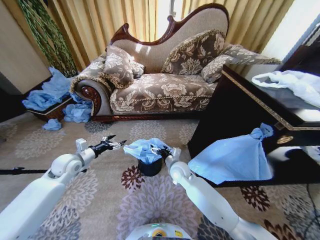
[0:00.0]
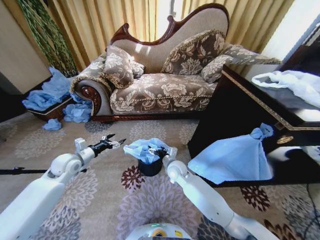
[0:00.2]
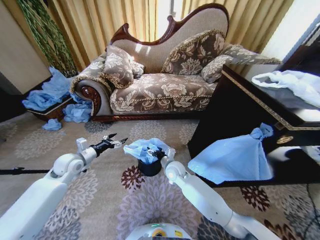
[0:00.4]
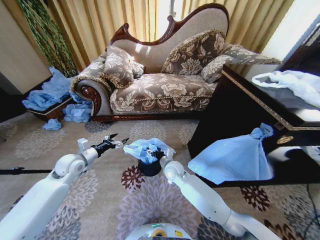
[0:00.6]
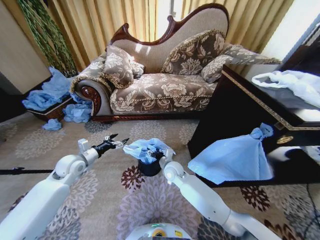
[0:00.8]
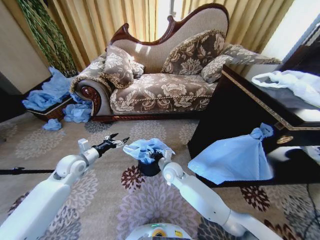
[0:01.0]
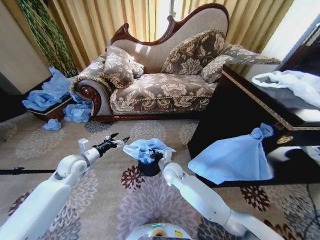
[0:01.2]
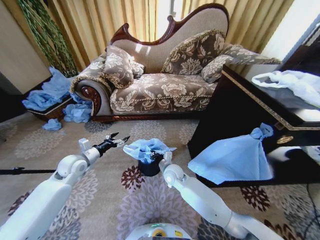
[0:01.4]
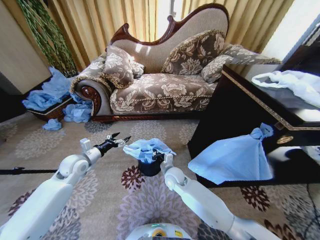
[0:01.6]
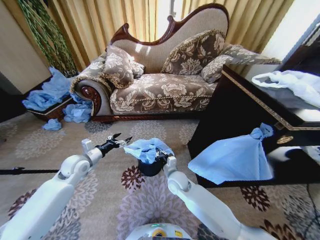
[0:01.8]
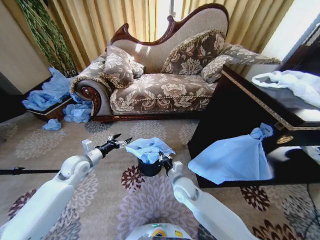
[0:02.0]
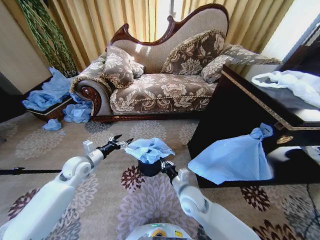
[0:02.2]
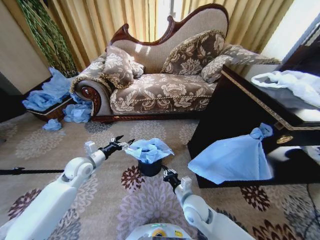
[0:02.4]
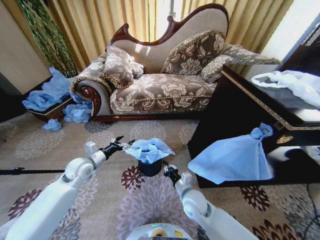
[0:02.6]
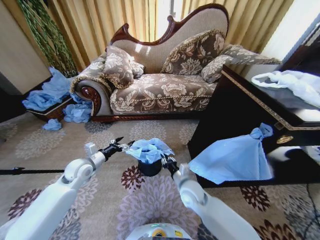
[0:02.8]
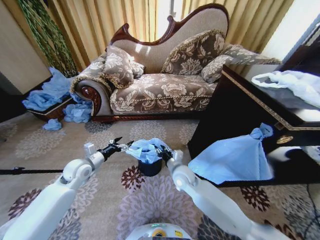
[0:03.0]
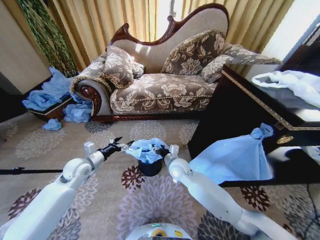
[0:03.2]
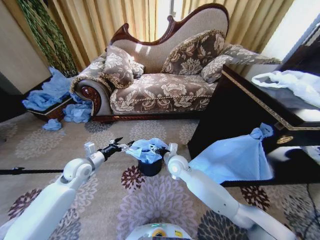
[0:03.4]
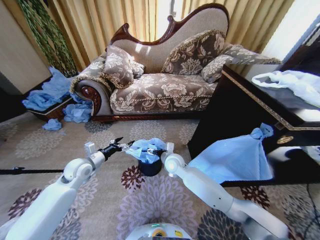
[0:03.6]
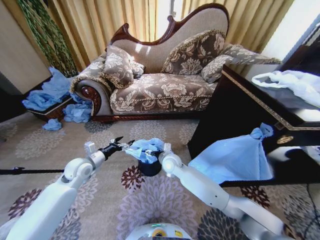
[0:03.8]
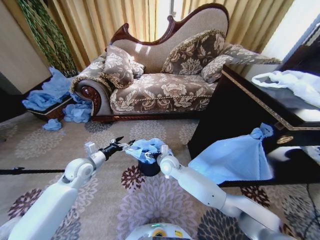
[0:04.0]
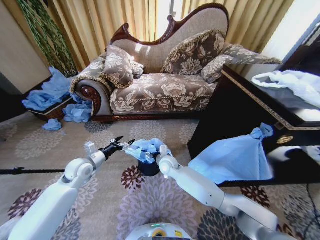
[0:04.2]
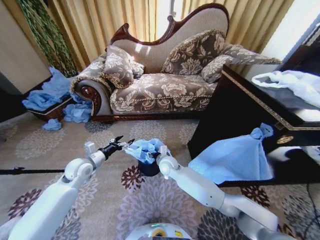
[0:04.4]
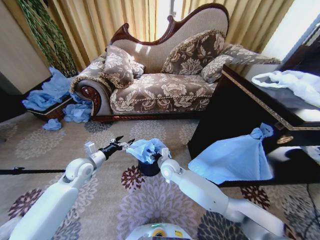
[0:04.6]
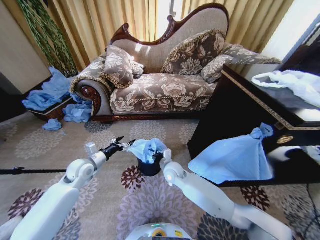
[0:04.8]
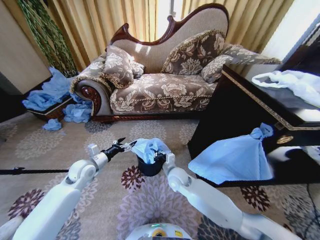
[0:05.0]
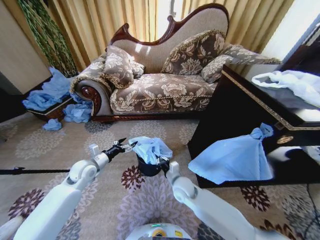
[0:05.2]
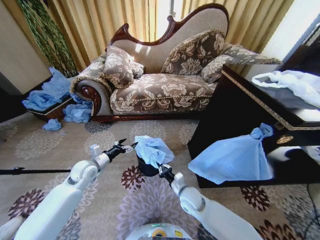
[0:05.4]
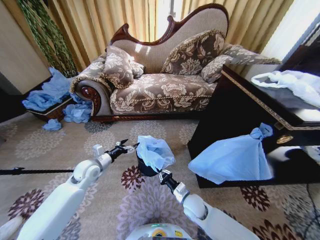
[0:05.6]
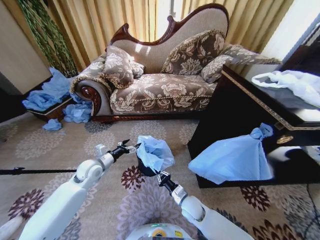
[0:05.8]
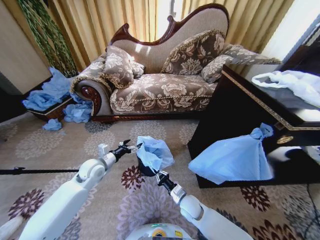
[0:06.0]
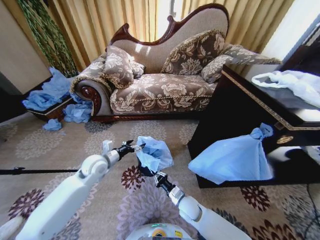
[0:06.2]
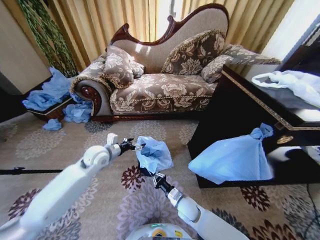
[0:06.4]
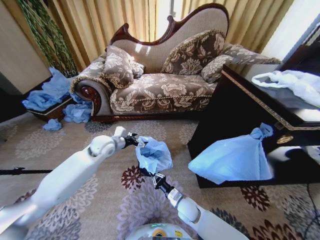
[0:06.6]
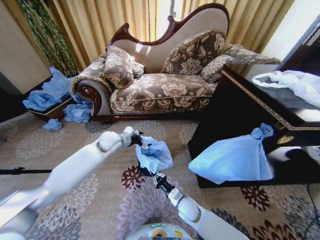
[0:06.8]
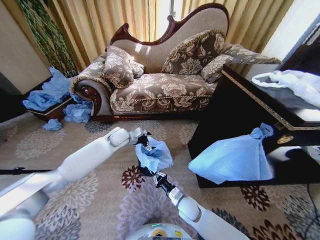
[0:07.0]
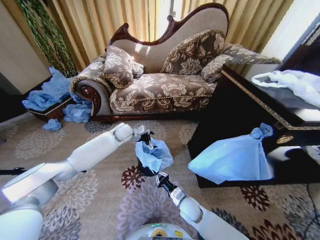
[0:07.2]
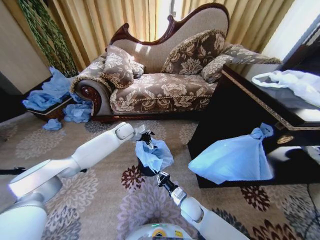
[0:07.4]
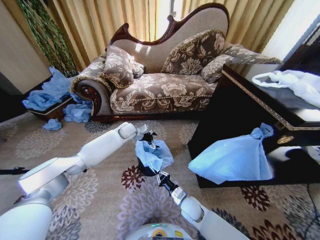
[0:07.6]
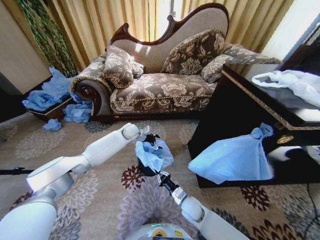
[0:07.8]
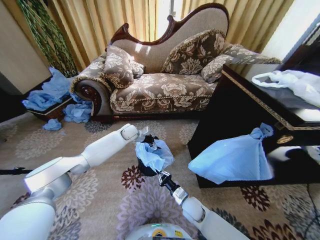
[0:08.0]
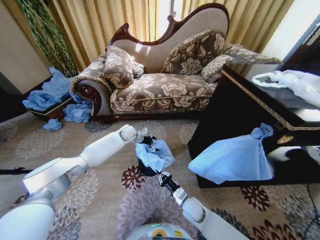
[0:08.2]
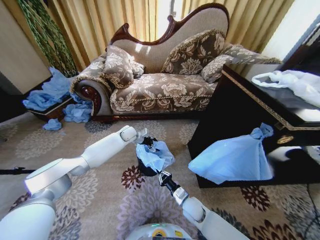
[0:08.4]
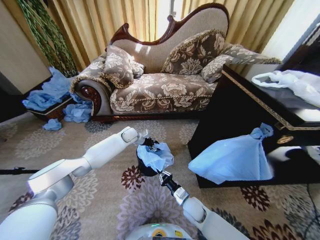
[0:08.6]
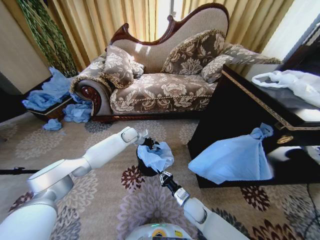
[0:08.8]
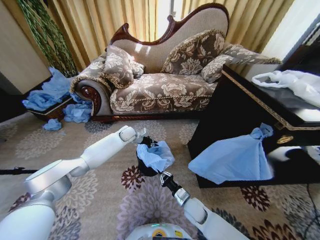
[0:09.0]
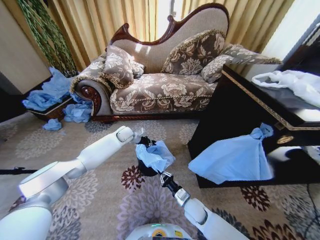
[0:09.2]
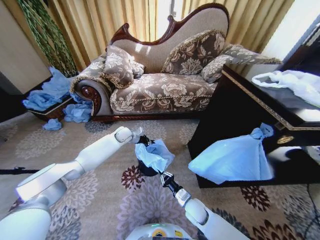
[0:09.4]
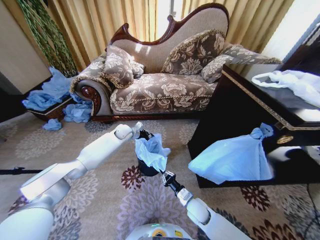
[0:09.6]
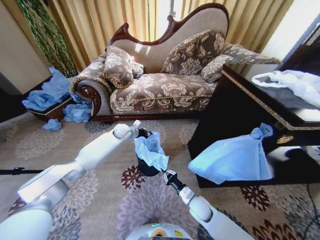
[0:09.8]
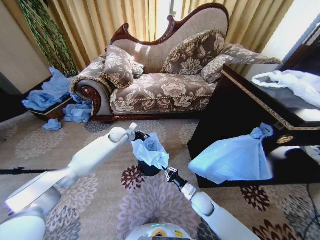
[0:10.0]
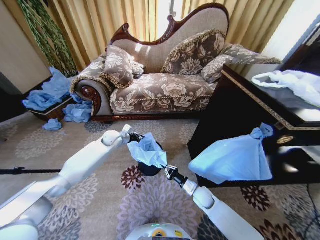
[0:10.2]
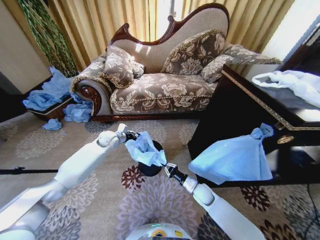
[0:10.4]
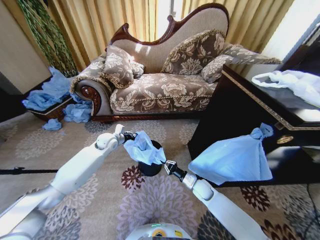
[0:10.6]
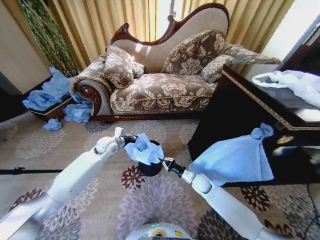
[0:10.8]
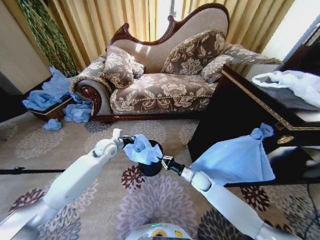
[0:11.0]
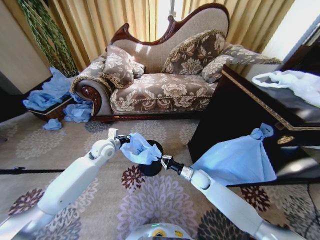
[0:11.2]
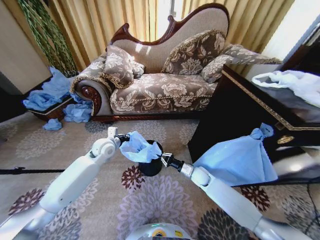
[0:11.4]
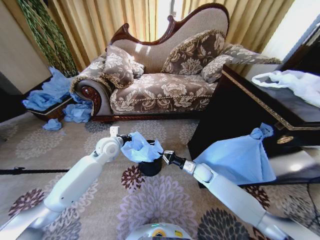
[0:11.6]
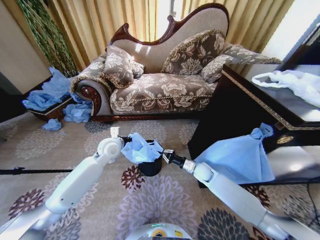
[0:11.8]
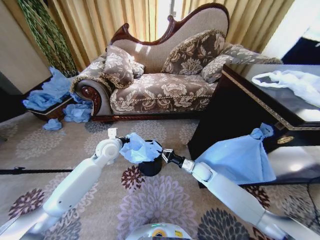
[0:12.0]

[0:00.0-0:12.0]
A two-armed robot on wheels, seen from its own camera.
Task of the whole recording: Place a garbage bag over the trash bin.
0.0 to 1.6 s: The right gripper closes up.
1.6 to 3.0 s: The right gripper is displaced upward by approximately 5 cm, travels backward and back again, roughly 10 cm each way, and opens up.
3.0 to 4.4 s: The right gripper shifts roughly 10 cm forward and to the left, and opens and closes again.
4.4 to 6.0 s: The right gripper moves backward, downward and to the right, about 20 cm, and closes; the left gripper moves about 5 cm.
6.0 to 7.6 s: The left gripper goes roughly 25 cm forward and to the right.
7.6 to 9.0 s: The left gripper closes up.
9.0 to 10.4 s: The left gripper travels to the left and backward by approximately 10 cm; the right gripper heads forward and to the right, covering about 10 cm.
10.4 to 12.0 s: The right gripper moves forward and upward, about 10 cm, while the left gripper moves backward, about 10 cm.

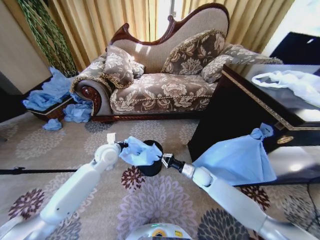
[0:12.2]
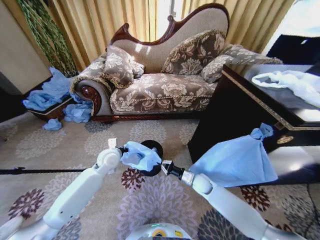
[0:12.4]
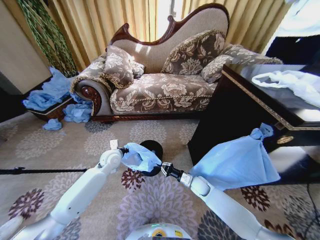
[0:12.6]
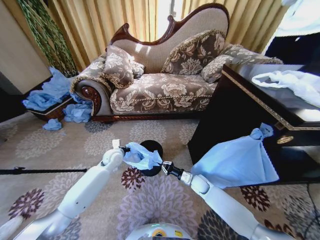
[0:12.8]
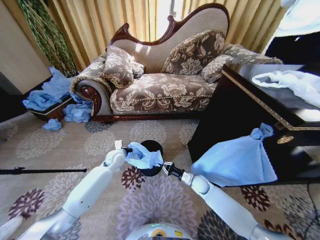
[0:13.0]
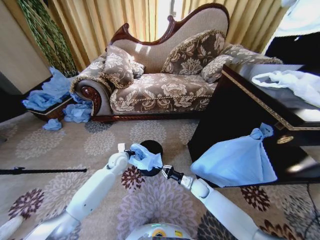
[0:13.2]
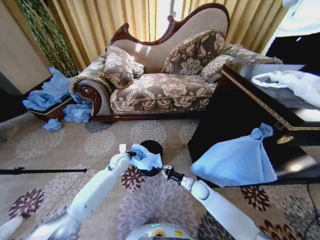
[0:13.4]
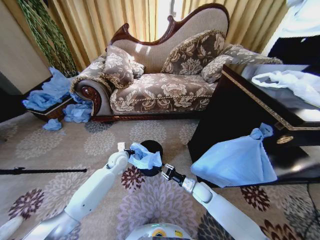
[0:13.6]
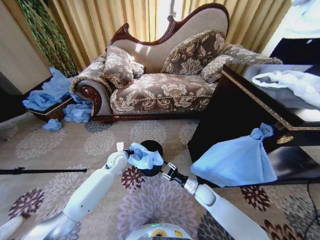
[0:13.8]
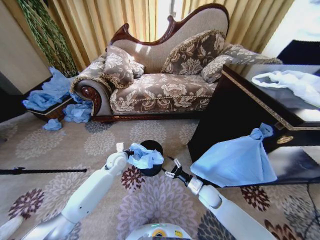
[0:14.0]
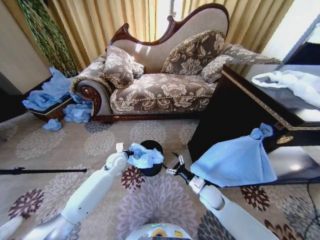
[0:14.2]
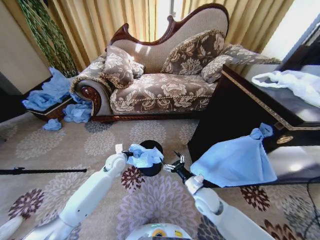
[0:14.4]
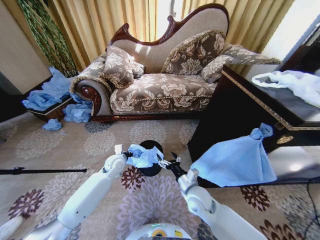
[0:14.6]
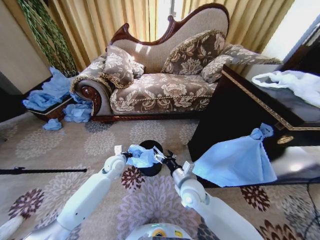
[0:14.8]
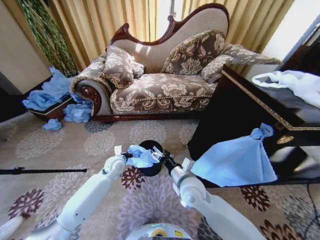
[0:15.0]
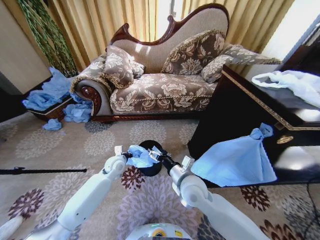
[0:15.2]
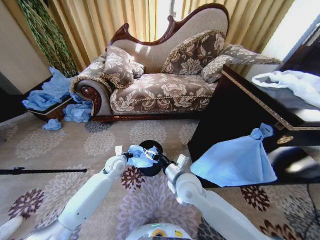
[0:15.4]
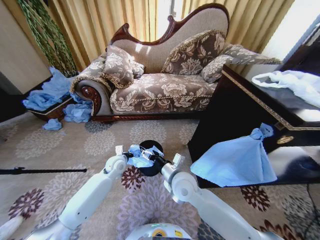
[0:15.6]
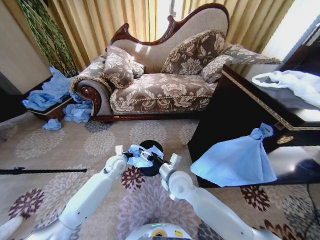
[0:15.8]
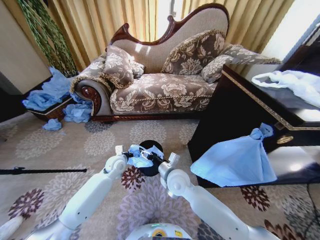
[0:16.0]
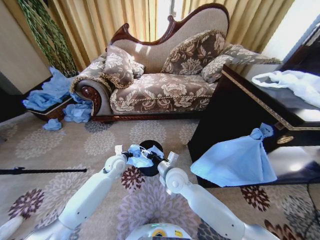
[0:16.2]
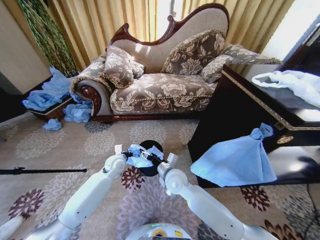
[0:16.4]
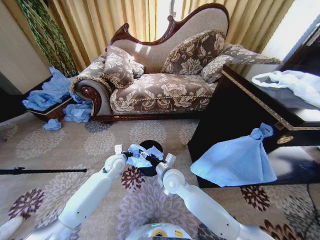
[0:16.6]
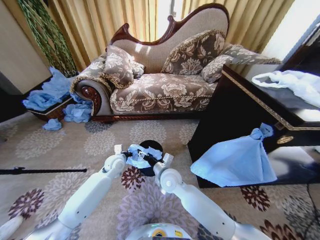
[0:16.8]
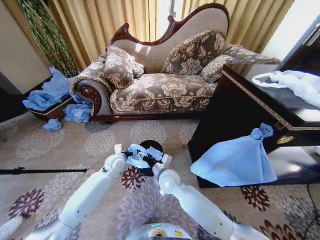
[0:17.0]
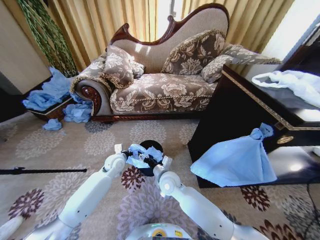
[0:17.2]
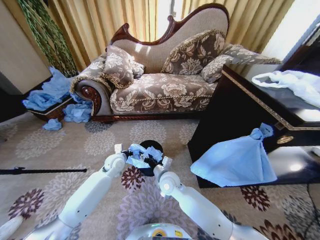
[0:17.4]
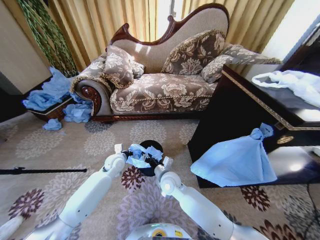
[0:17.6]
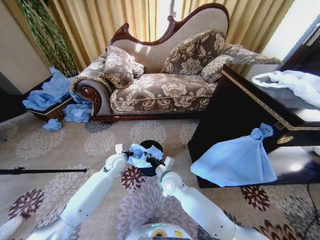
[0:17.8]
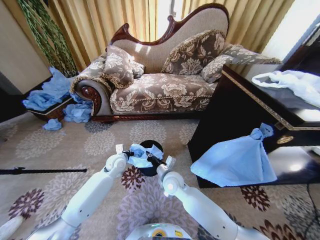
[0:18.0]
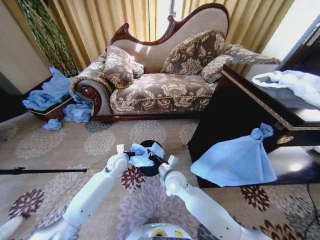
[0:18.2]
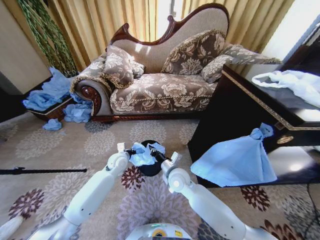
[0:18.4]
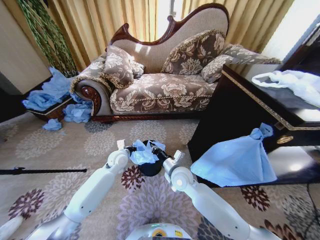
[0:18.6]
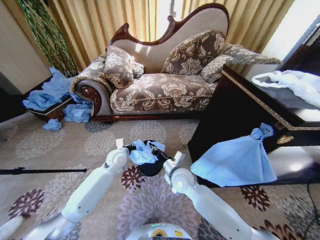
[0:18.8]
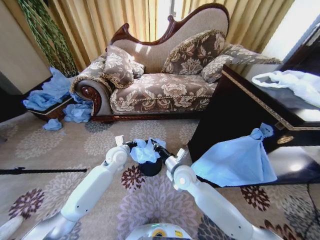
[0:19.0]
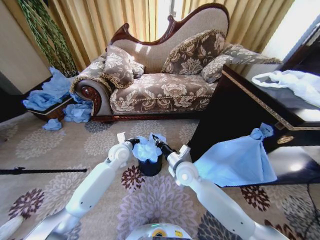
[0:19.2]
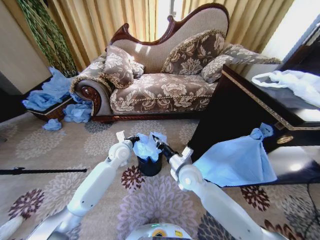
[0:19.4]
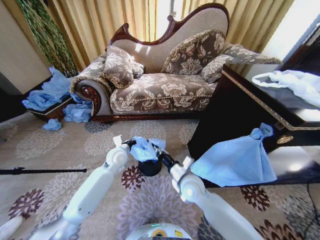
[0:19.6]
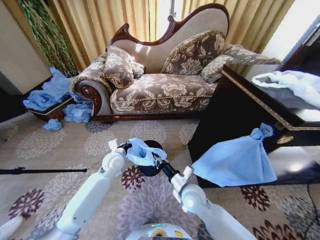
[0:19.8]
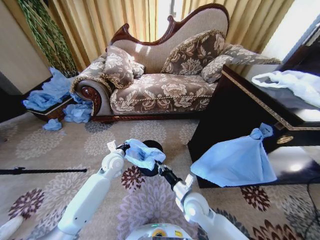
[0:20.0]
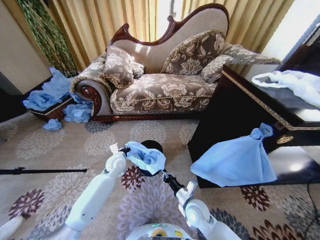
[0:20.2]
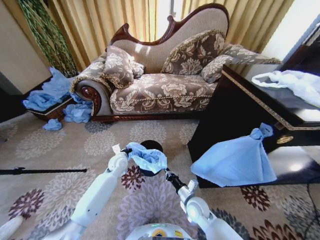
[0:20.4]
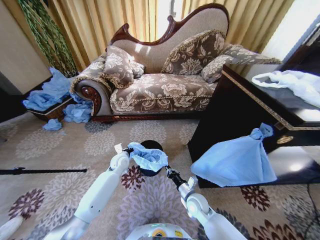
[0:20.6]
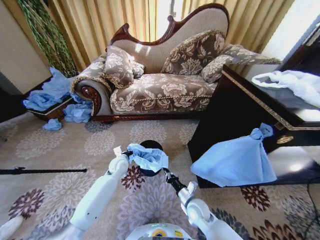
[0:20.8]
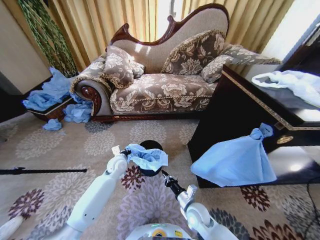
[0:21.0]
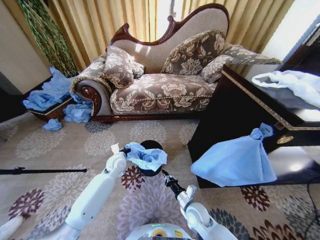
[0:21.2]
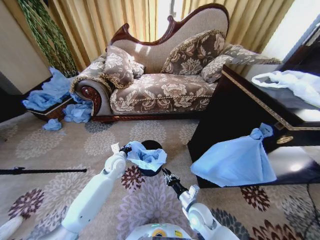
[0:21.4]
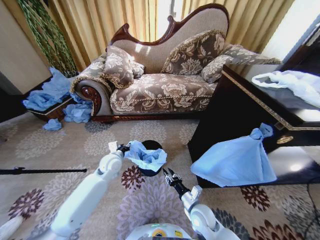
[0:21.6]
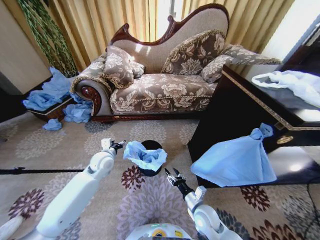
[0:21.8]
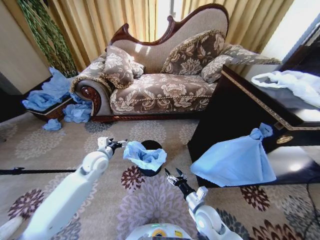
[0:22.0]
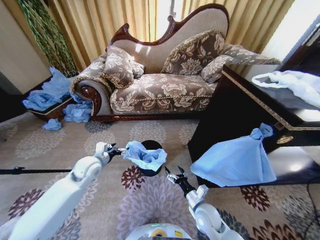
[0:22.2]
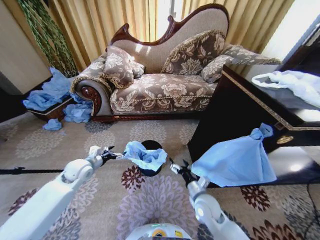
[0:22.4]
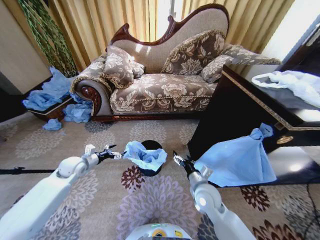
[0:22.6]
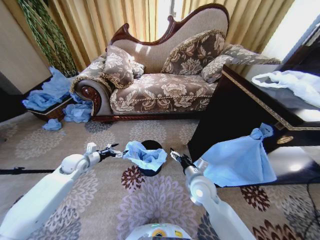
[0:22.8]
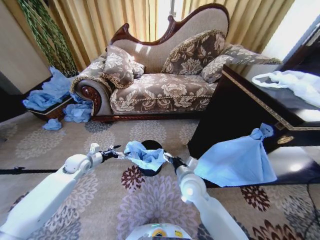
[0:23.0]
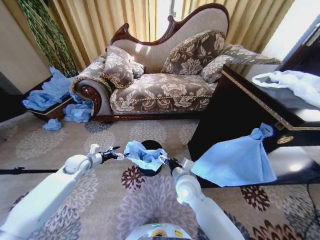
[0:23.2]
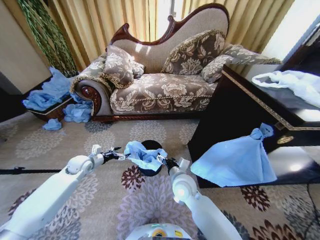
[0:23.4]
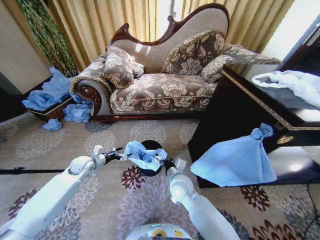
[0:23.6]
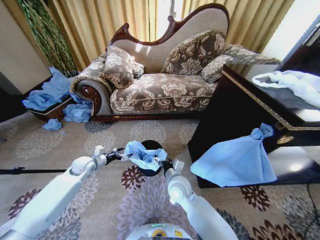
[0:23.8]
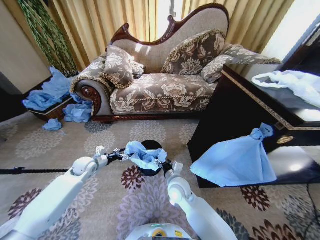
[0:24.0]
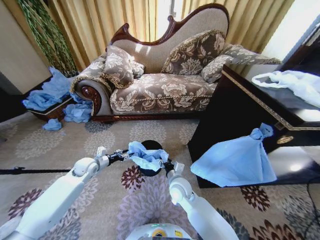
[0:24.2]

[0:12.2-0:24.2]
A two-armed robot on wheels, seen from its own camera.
Task of the whole recording: Place a garbage bag over the trash bin.
12.2 to 13.8 s: The left gripper travels downward by approximately 10 cm. The right gripper heads backward and downward, covering roughly 10 cm, and opens its fingers.
13.8 to 15.2 s: The right gripper shifts roughly 25 cm upward and to the left, and opens its fingers.
15.2 to 16.6 s: The right gripper shifts approximately 10 cm to the left and forward.
16.6 to 18.2 s: The right gripper closes its fingers.
18.2 to 19.8 s: The right gripper goes roughly 10 cm to the right and backward.
19.8 to 21.2 s: The right gripper goes some 10 cm downward.
21.2 to 22.6 s: The left gripper moves to the left, some 20 cm, and opens up; the right gripper is displaced upward by some 15 cm, and opens up.
22.6 to 24.2 s: The right gripper moves to the left, roughly 10 cm, and closes up, while the left gripper moves approximately 5 cm, and closes.
